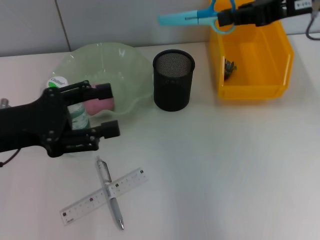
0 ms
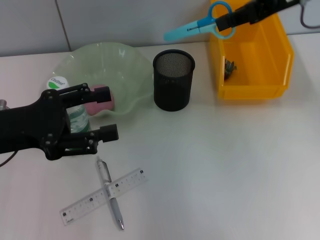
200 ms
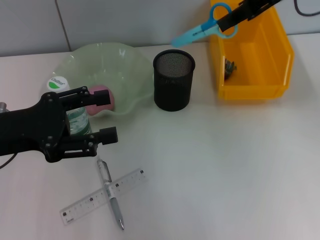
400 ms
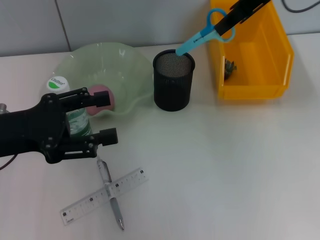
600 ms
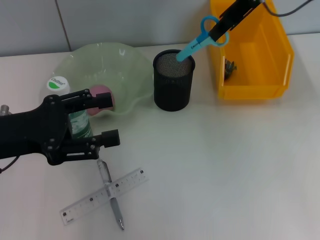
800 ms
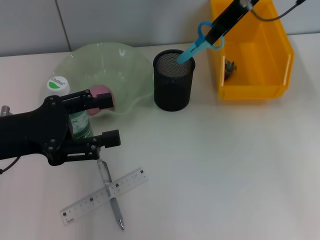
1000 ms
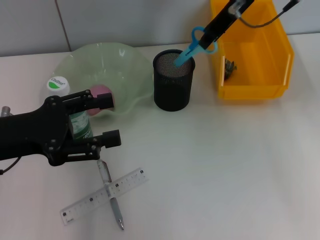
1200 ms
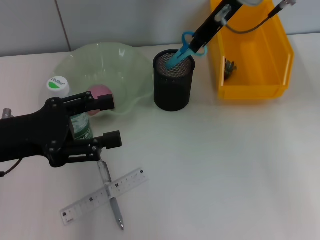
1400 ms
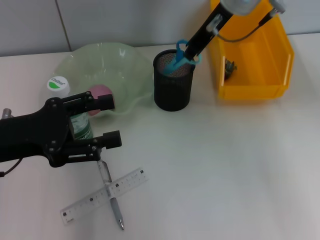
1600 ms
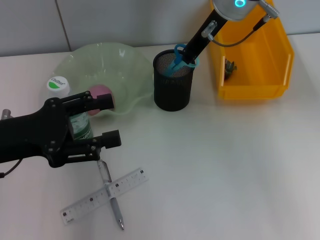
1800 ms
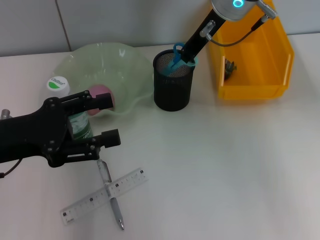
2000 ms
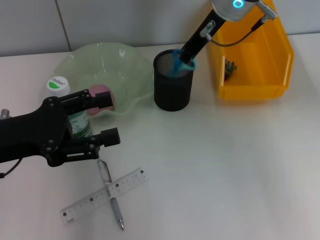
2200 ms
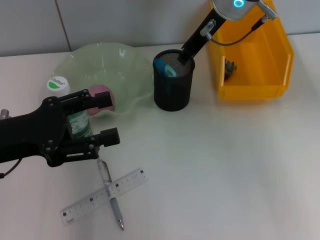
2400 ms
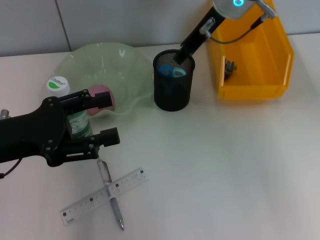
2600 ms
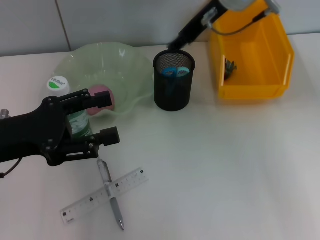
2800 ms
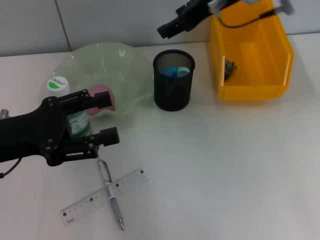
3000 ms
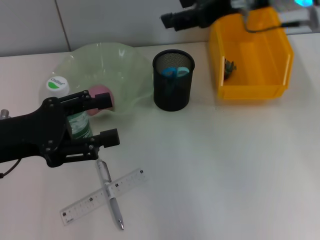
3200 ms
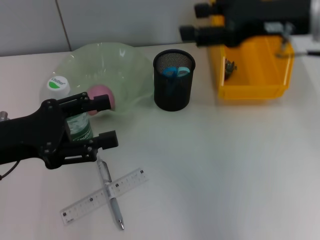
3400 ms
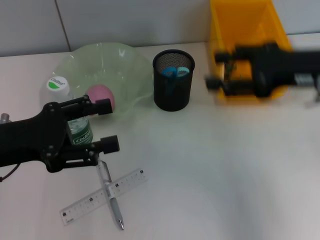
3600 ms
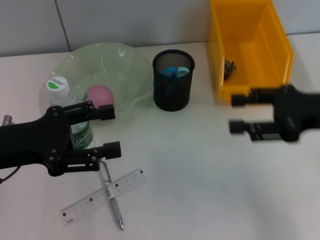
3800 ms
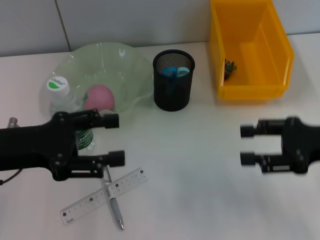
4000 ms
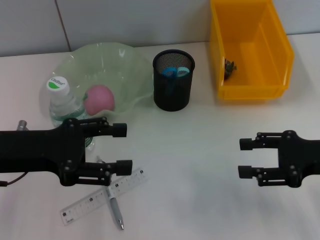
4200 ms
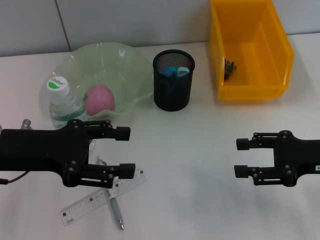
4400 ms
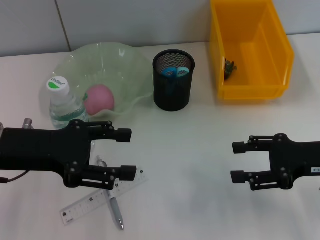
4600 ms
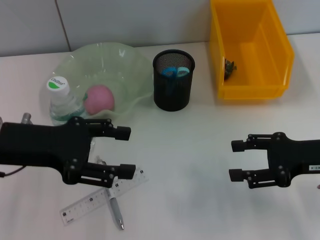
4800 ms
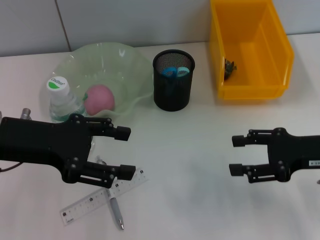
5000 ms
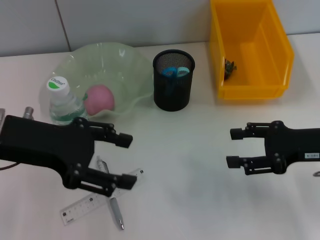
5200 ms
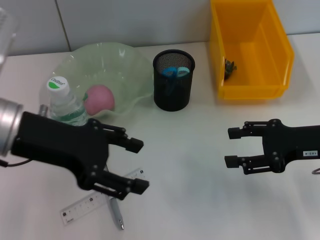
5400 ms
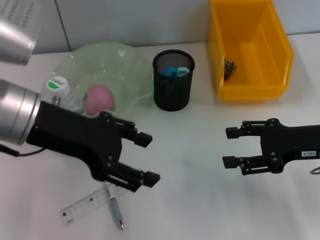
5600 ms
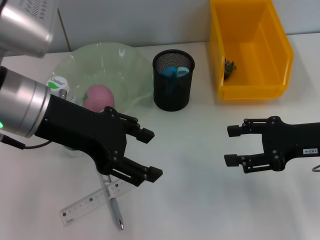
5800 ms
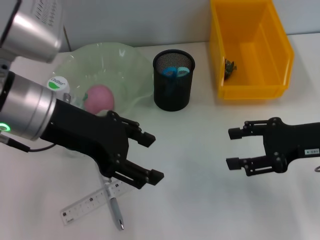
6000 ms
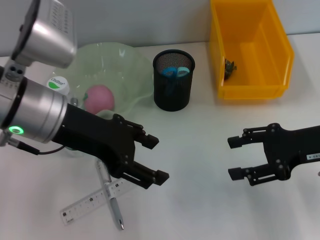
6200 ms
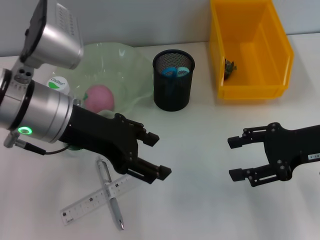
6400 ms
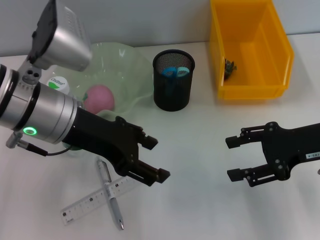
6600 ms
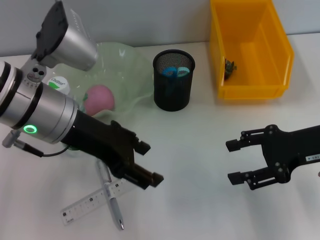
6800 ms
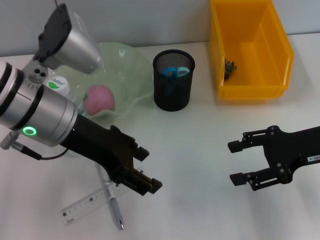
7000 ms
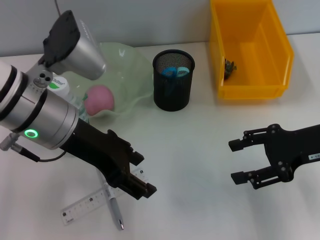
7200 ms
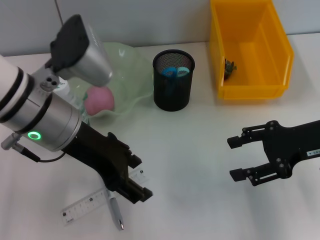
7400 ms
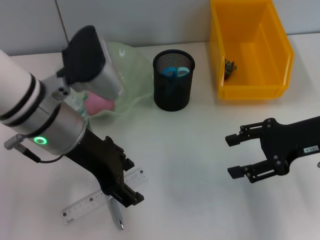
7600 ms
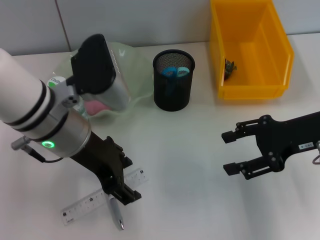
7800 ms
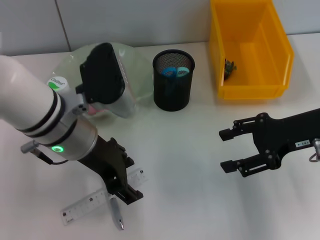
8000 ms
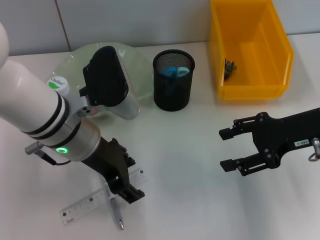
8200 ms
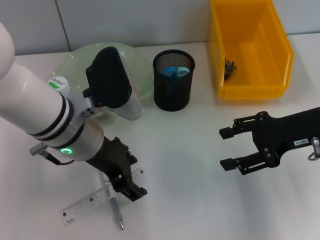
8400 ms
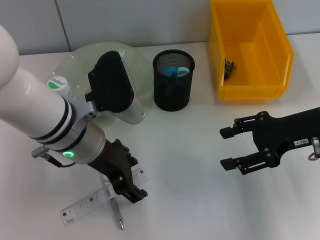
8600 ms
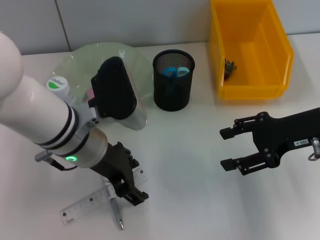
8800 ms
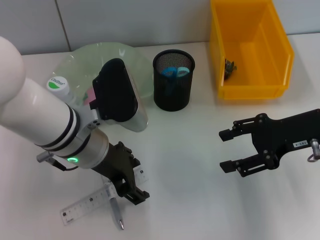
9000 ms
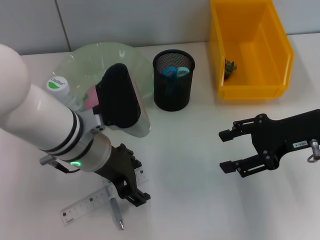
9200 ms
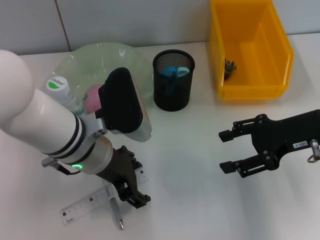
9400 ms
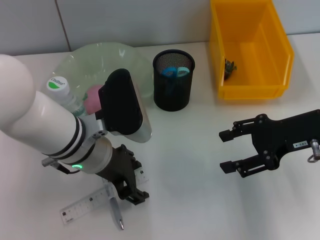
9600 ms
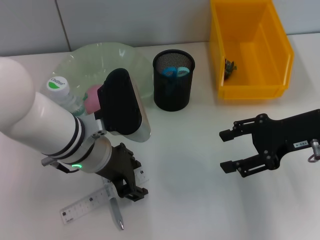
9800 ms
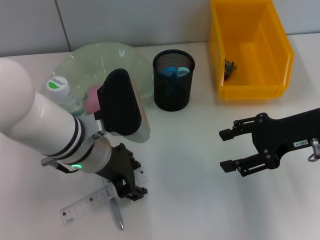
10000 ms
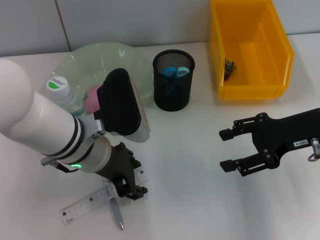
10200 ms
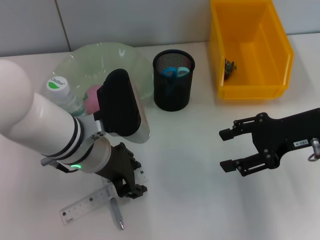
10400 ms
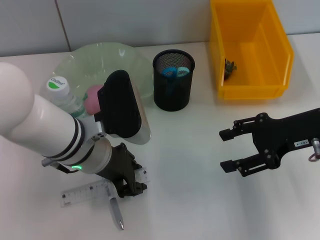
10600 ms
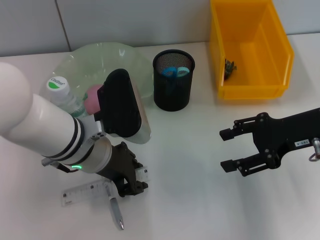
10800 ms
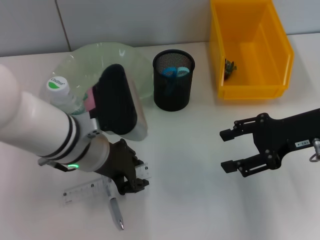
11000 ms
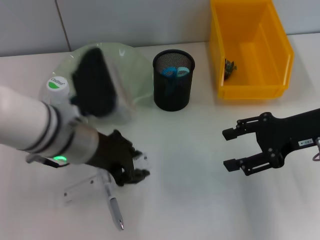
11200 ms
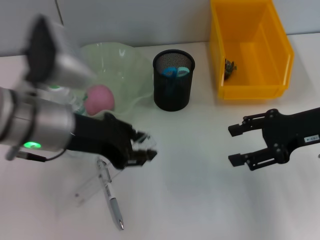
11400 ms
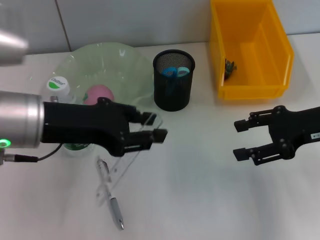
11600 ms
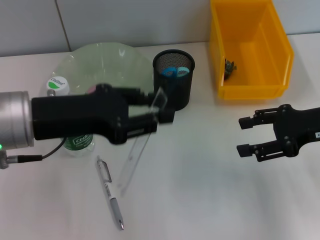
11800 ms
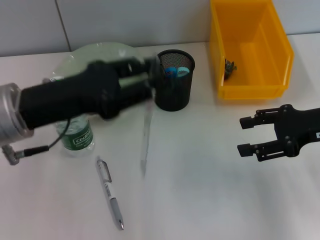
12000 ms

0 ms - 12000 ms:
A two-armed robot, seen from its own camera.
Step, 0 ms - 2200 ms: Place the blue scissors into the pen holder with the right hand.
Step, 2400 ms - 10600 ms: Grab the ruler with the left hand.
0 ms - 1600 ms: The right gripper travels to the left and forward by about 15 cm.
1600 ms - 3000 ms: The right gripper opens up.
3000 ms - 4400 ms: The right gripper shifts roughly 30 cm downward, backward and to the right.
4400 ms - 6000 ms: The left gripper goes approximately 10 cm to the right and upward.
7600 ms - 9000 ms: The left gripper moves downward, approximately 5 cm.
9000 ms - 10400 ms: There are only small adjustments of the grippers.
10400 ms - 12000 ms: The left gripper is displaced to the left and upward by some 10 cm.

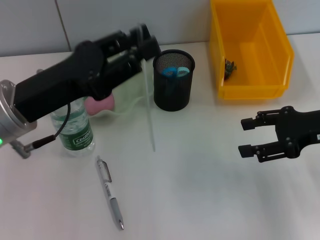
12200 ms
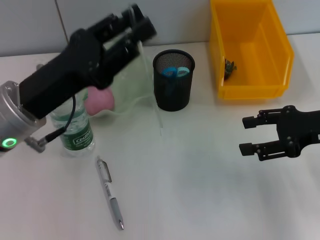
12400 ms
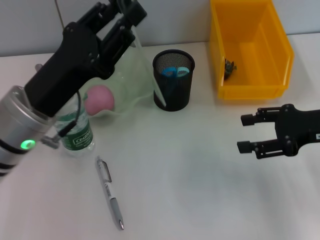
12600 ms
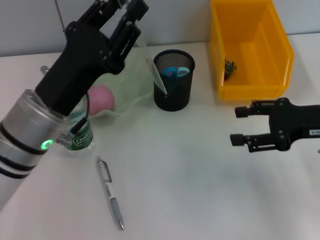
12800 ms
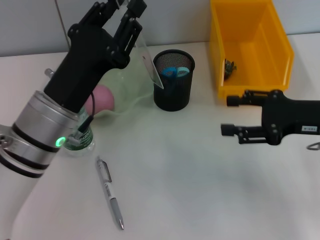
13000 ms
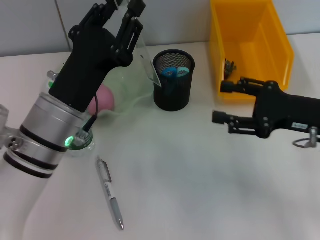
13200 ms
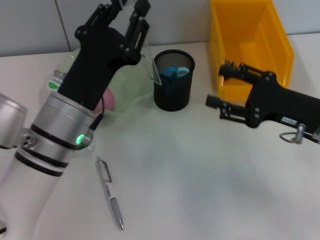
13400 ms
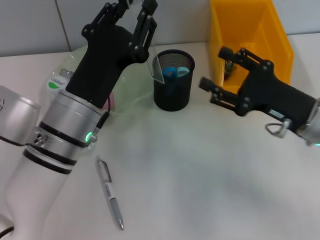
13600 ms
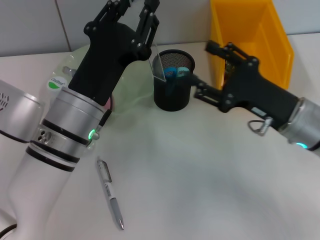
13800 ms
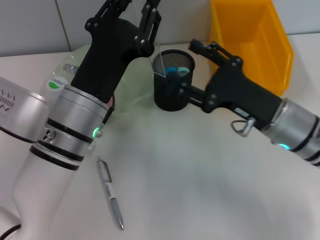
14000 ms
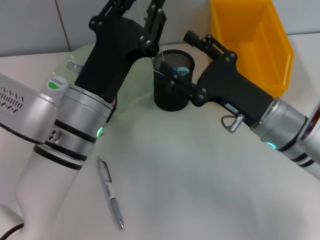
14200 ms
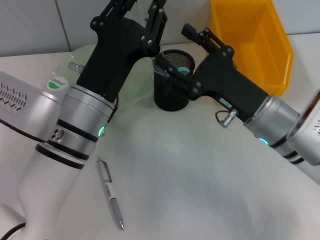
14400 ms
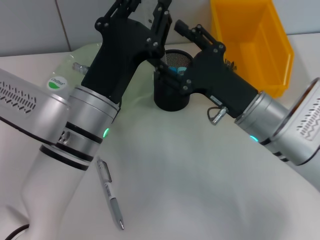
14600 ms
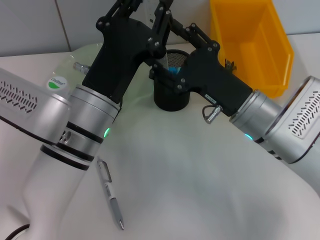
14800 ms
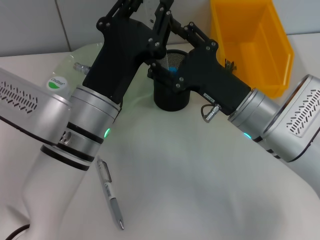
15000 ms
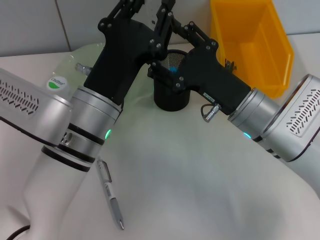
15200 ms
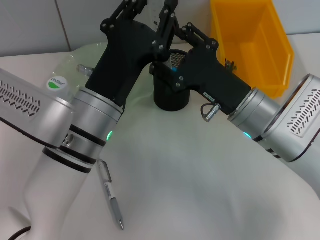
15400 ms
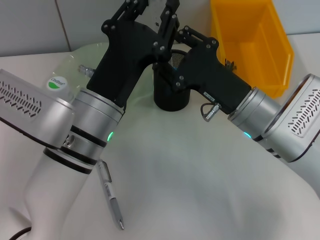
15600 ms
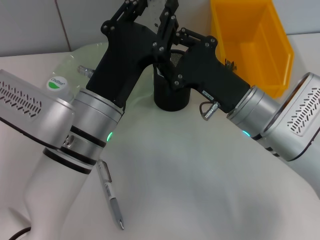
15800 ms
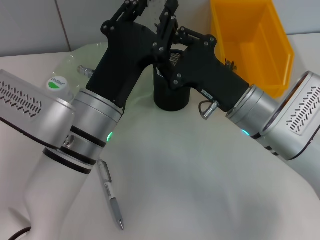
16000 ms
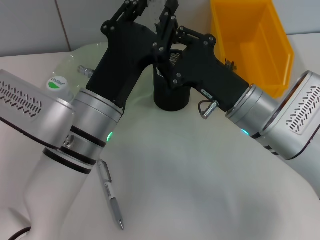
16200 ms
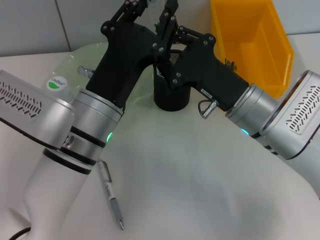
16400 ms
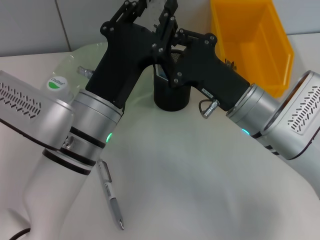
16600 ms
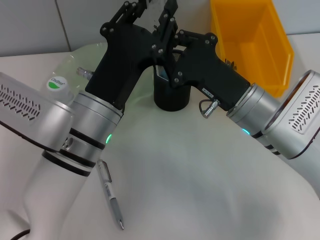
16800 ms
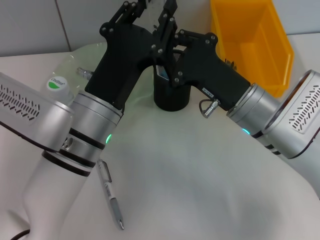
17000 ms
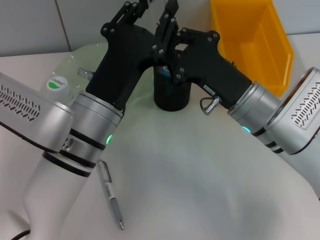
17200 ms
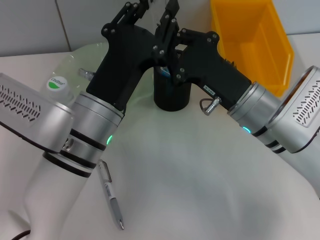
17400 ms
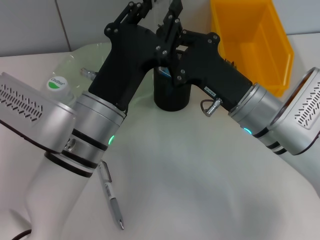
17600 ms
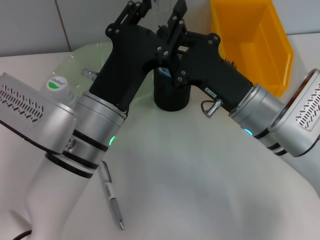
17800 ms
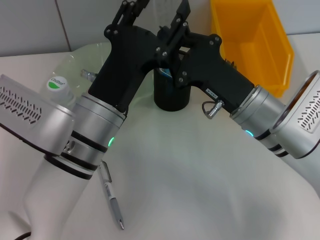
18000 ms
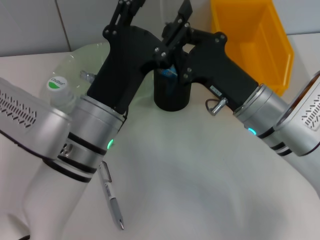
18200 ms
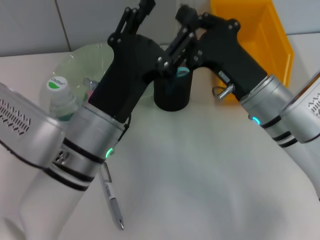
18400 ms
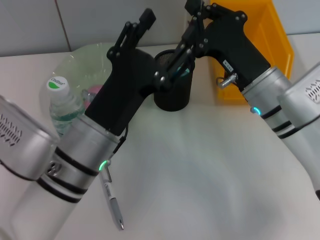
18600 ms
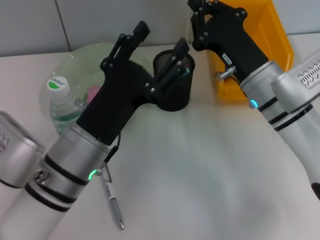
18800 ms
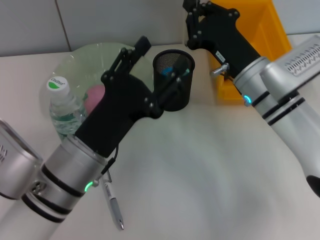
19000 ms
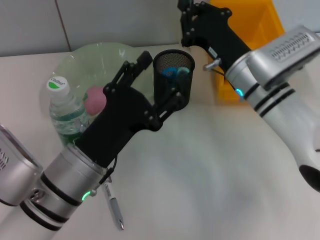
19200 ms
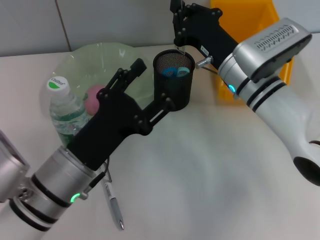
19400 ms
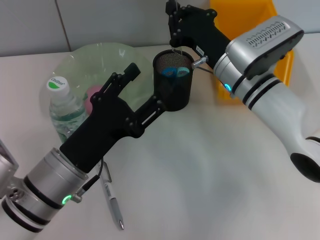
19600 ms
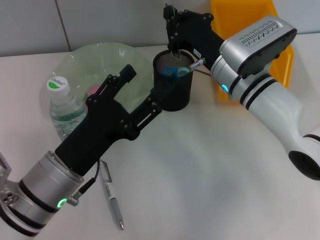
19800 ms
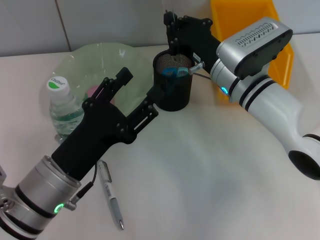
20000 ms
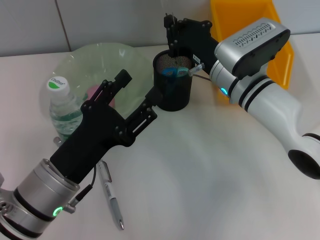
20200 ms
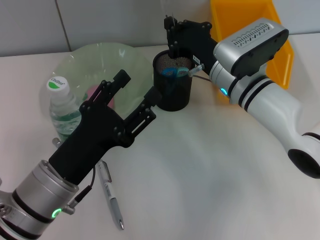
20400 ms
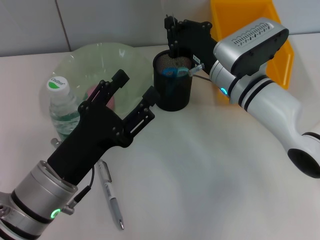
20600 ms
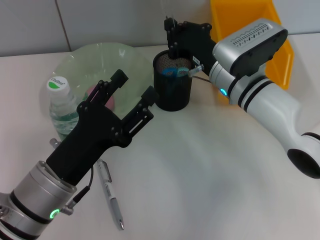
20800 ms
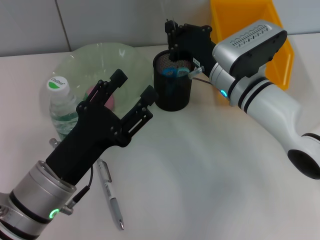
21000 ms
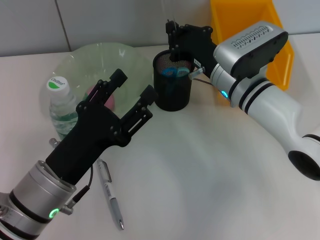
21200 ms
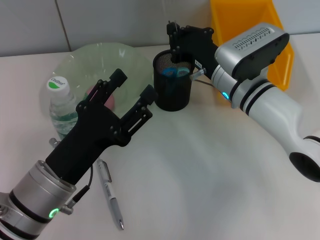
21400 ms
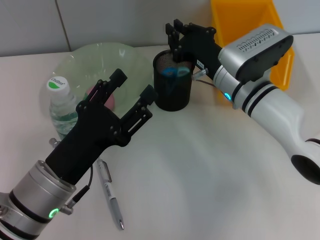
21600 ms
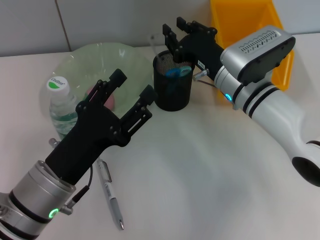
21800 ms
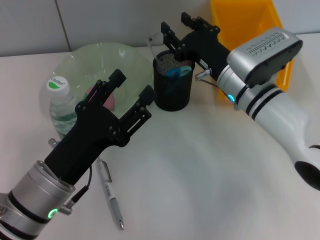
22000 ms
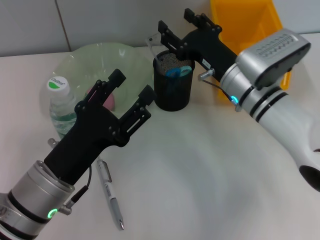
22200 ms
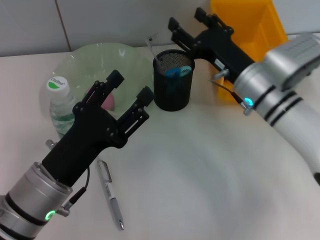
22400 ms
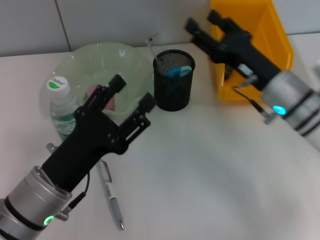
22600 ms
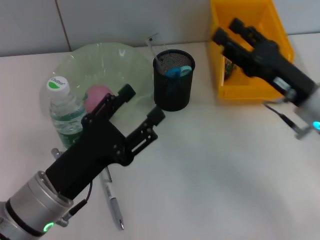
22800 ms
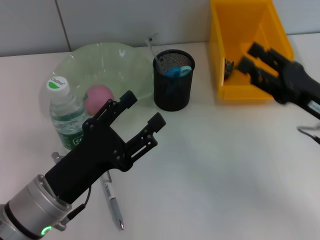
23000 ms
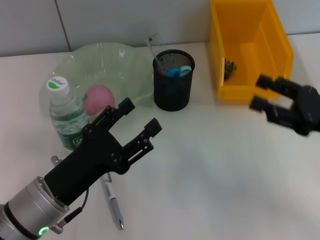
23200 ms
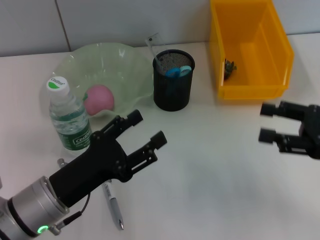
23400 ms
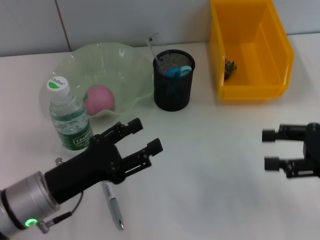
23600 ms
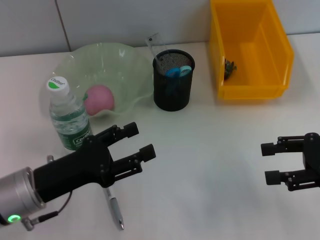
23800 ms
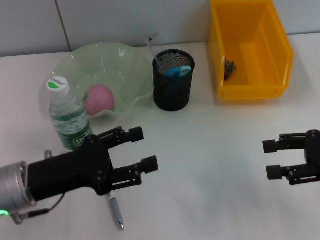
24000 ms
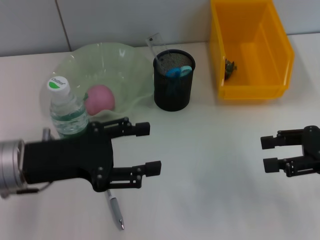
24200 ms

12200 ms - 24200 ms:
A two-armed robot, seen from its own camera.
Step, 12200 ms - 18600 ms: Pass the ruler from the left hand to the right hand.
Step, 18800 ms - 22800 ms: Place the ruler into the pen holder with the right hand.
12200 ms - 13800 ms: The right gripper goes roughly 10 cm to the left and downward. The left gripper is displaced to the right and downward by some 10 cm.
13800 ms - 15200 ms: The right gripper moves to the left, approximately 5 cm.
15200 ms - 16600 ms: The right gripper closes up.
16600 ms - 18200 ms: The left gripper opens.
18200 ms - 19800 ms: The left gripper is displaced to the left by some 5 cm. The right gripper heads forward, covering about 5 cm.
19800 ms - 21200 ms: There are only small adjustments of the grippers.
21200 ms - 22600 ms: The right gripper shifts approximately 10 cm to the right and backward, and opens.
22600 ms - 24200 ms: The left gripper is displaced upward and forward by approximately 10 cm, while the right gripper is displaced to the right and backward by approximately 15 cm.
